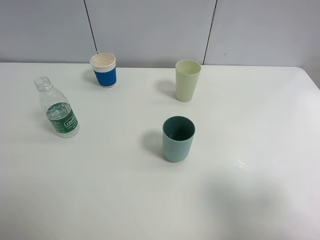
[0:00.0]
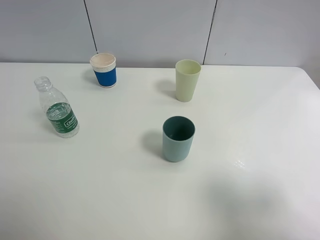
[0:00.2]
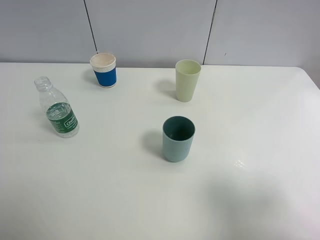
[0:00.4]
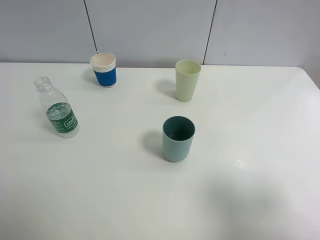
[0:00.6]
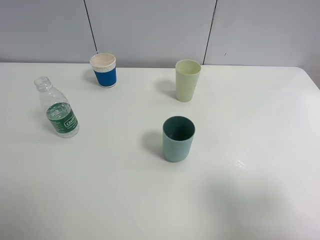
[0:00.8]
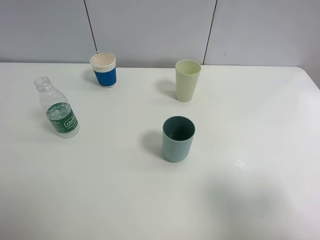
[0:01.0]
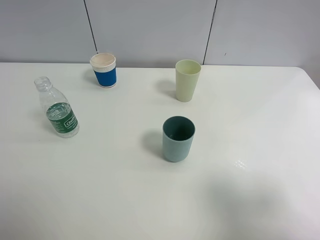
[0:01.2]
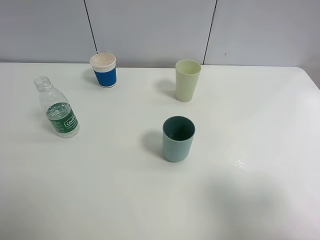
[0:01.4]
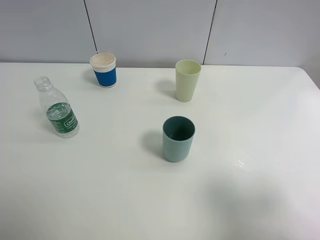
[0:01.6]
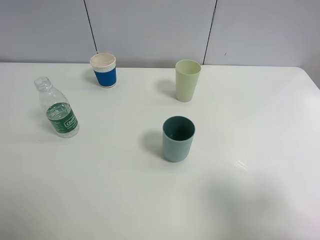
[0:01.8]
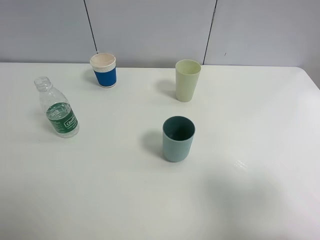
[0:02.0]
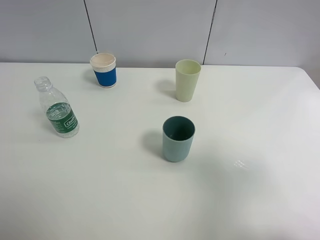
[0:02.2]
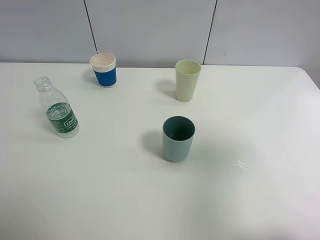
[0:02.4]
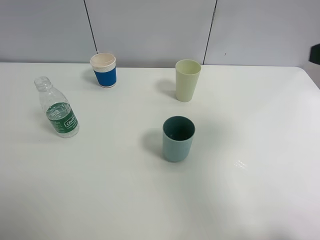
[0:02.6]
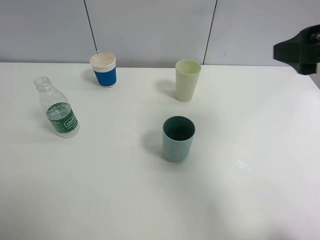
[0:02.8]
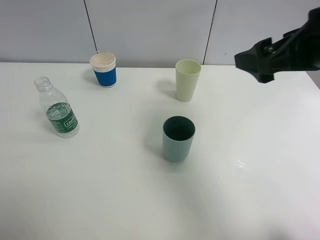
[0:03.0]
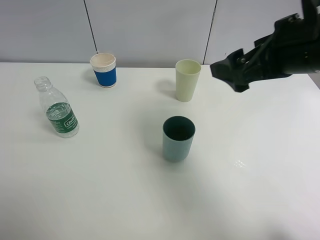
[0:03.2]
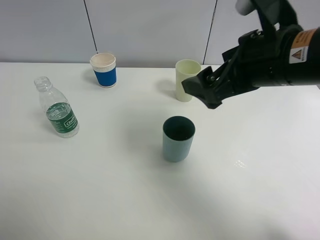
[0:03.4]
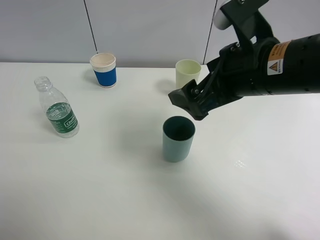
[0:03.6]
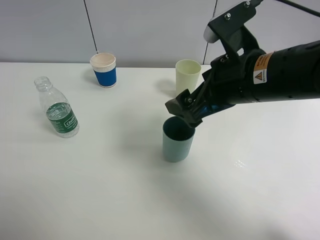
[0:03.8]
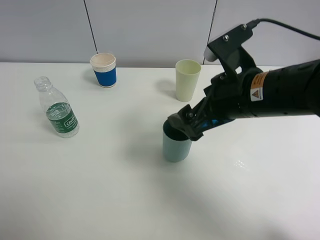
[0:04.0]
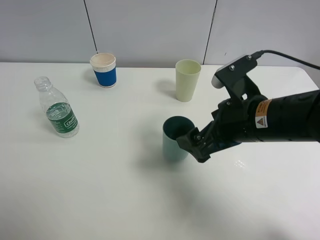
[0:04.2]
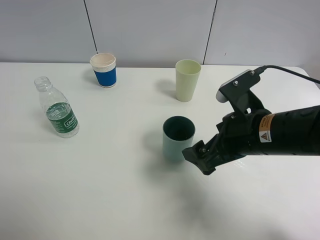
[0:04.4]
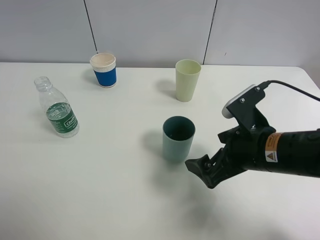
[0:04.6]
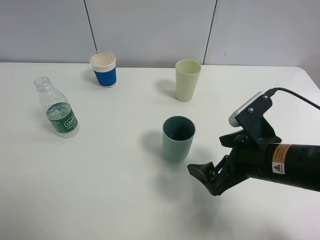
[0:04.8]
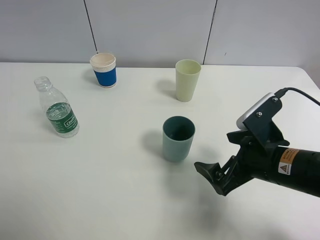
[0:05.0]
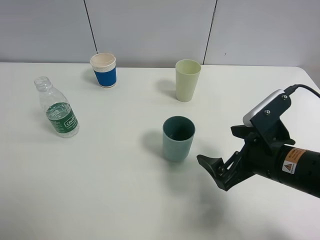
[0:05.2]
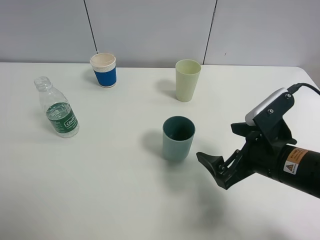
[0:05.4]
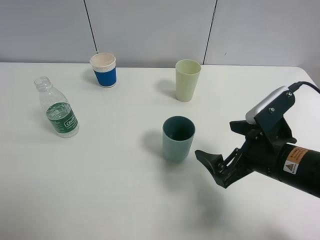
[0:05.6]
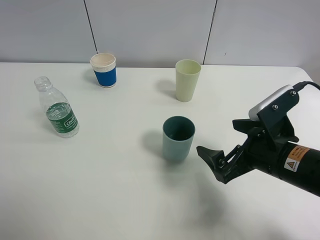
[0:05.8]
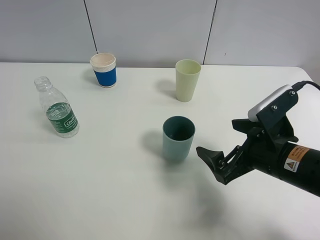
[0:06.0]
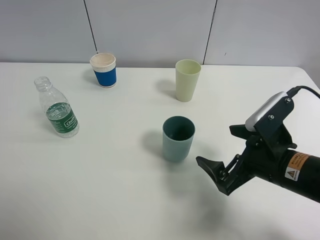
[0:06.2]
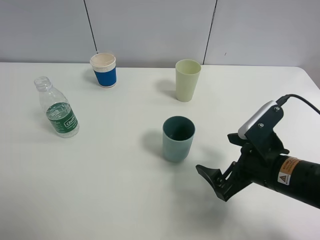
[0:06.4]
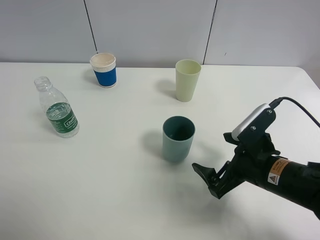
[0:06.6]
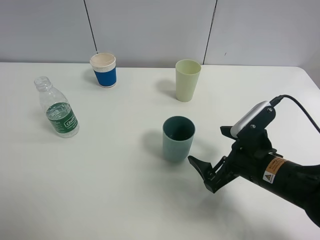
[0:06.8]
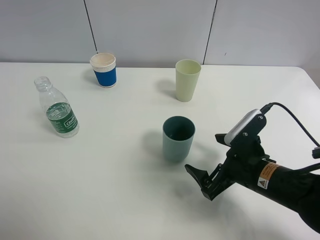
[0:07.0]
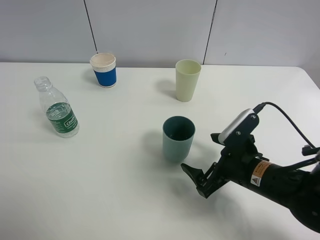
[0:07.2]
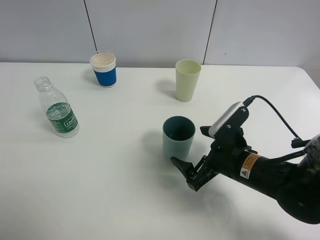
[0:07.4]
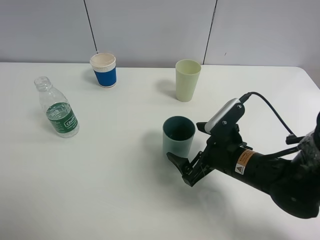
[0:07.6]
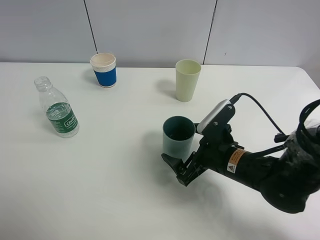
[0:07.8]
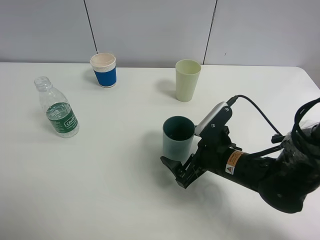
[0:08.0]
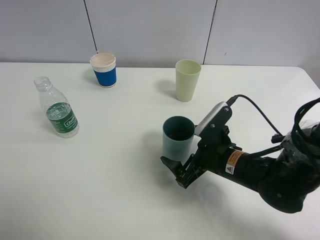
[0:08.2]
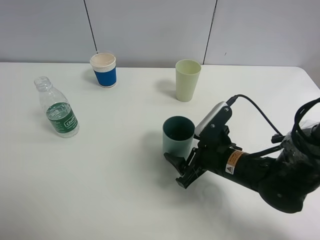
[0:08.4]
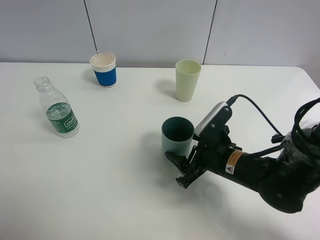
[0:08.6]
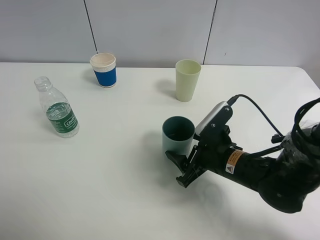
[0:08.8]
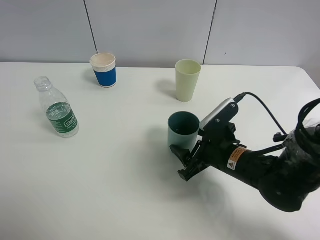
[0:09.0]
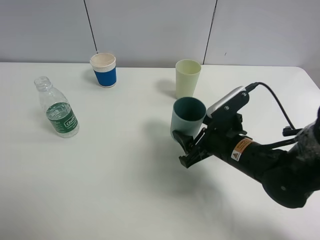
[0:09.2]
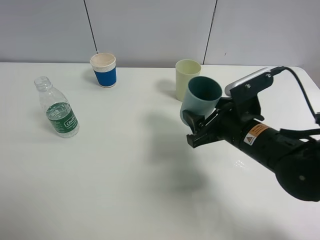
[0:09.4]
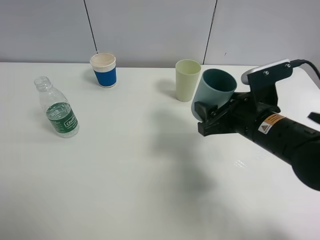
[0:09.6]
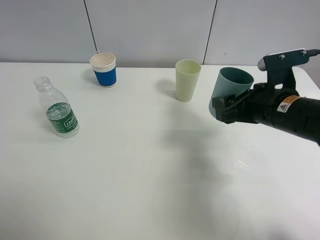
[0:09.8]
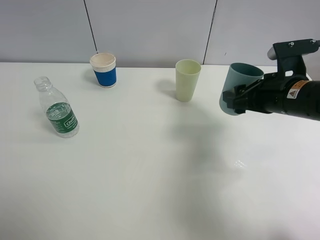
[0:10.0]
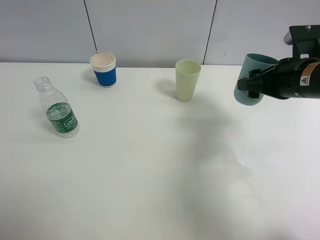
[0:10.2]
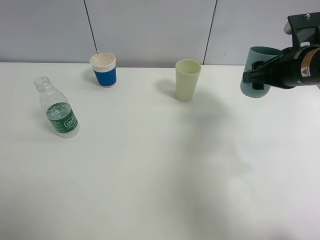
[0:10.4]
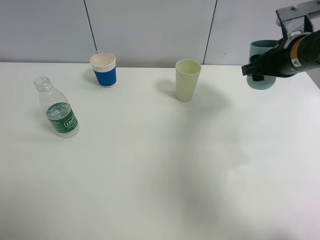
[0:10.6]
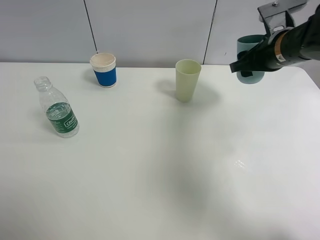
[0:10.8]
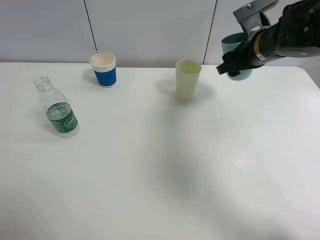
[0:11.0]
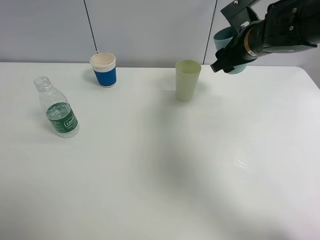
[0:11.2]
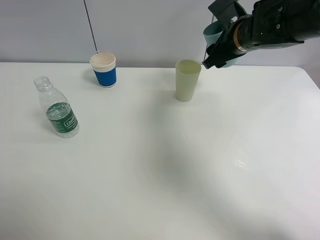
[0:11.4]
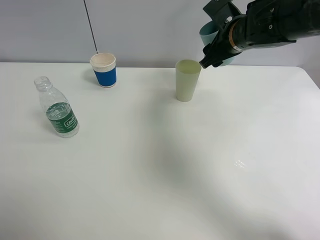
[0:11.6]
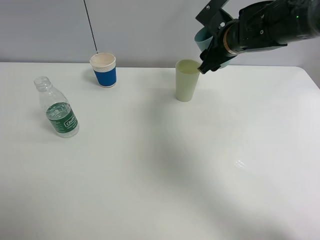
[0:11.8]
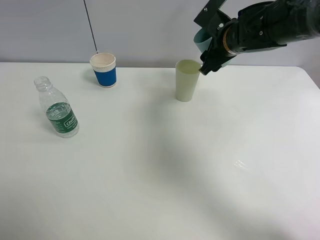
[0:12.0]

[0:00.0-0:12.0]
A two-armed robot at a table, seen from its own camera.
Task of the whole recording: use a clamp to hold the bottle of the drink, pour the beverage into a random cup, then clamp the cup containing the drink and pour the drink into another random cup.
Step, 0:00.0 to 0:08.8: Pick up the blue plastic cup bottle with right gripper.
0:00.0 to 0:01.6: Neither gripper changes place.
0:01.6 to 0:03.0: The right gripper travels forward and to the left by some 20 cm.
0:03.0 to 0:04.4: The right gripper moves downward and to the left, roughly 15 cm.
0:06.0 to 0:07.6: The right gripper moves downward, some 5 cm.
0:07.6 to 0:09.0: The right gripper closes.
0:09.0 to 0:10.4: The right gripper moves upward, to the right and forward, about 20 cm.
0:10.4 to 0:12.0: The right gripper goes approximately 15 cm to the left and forward.

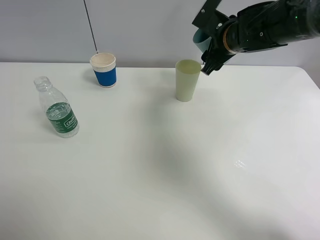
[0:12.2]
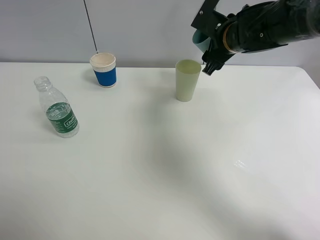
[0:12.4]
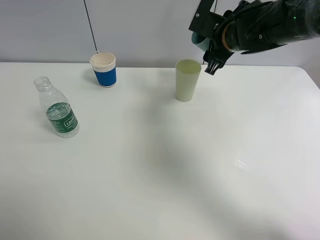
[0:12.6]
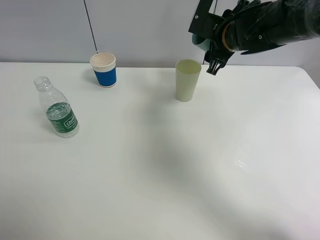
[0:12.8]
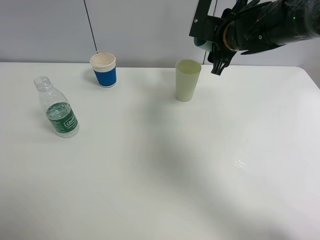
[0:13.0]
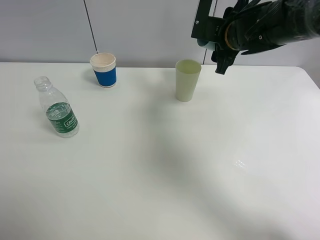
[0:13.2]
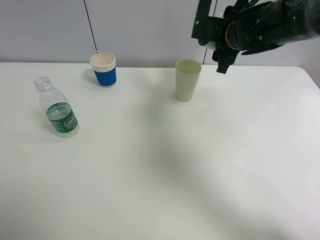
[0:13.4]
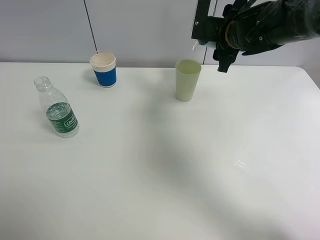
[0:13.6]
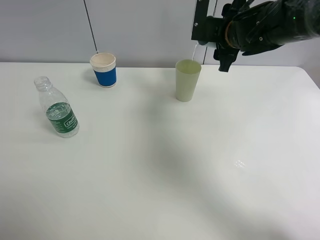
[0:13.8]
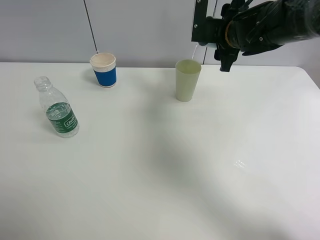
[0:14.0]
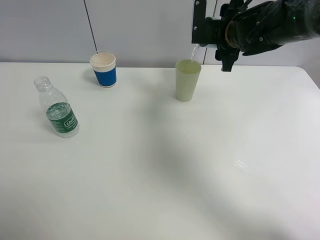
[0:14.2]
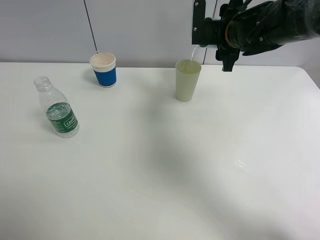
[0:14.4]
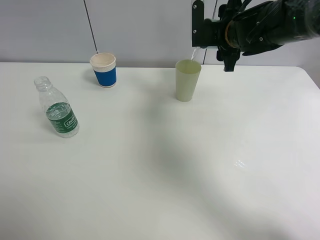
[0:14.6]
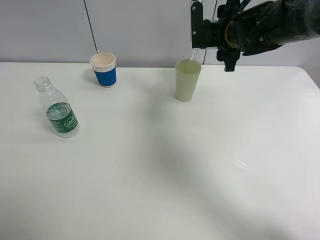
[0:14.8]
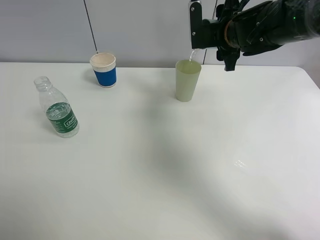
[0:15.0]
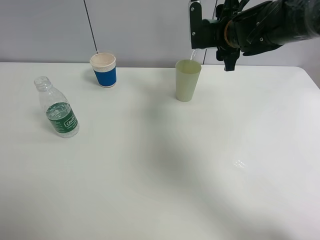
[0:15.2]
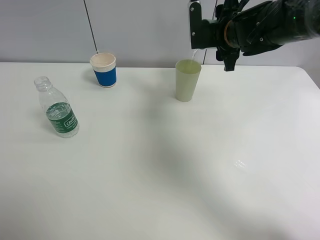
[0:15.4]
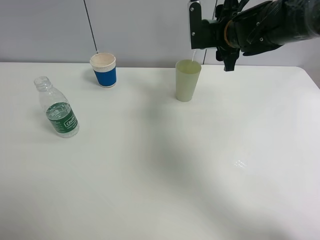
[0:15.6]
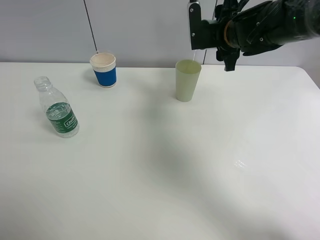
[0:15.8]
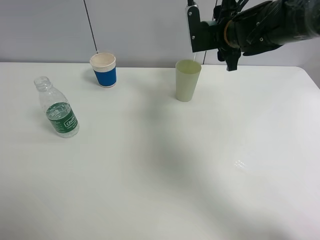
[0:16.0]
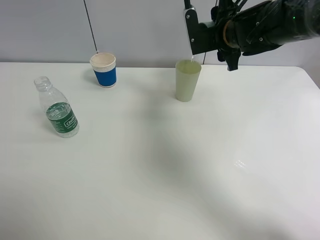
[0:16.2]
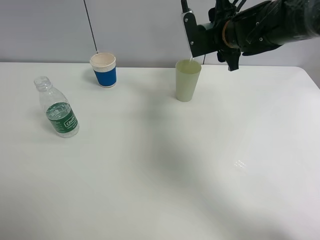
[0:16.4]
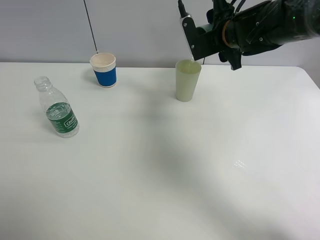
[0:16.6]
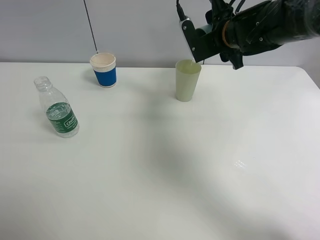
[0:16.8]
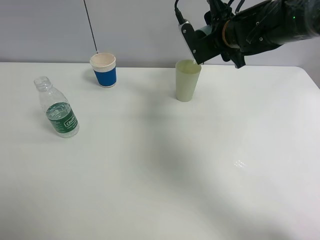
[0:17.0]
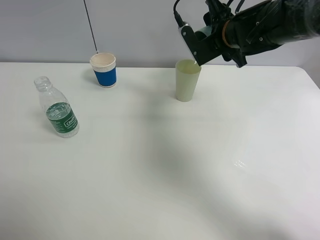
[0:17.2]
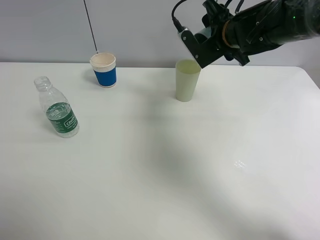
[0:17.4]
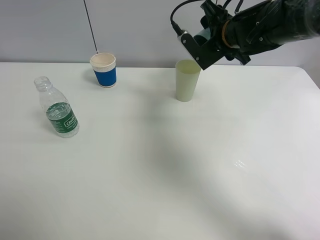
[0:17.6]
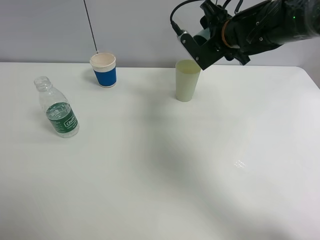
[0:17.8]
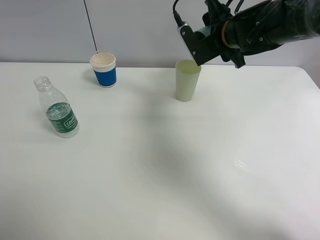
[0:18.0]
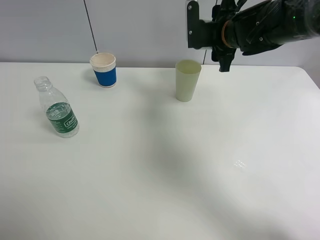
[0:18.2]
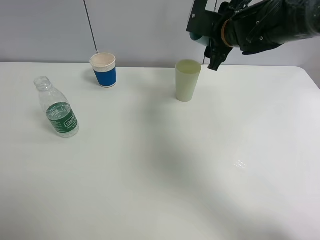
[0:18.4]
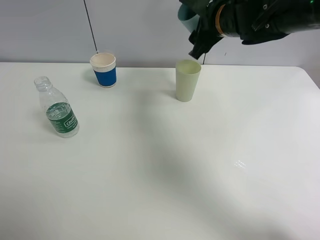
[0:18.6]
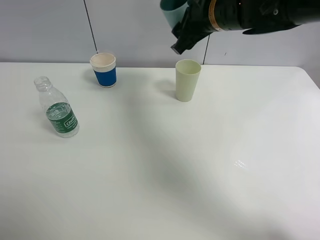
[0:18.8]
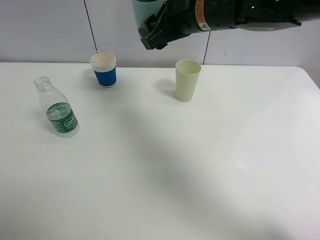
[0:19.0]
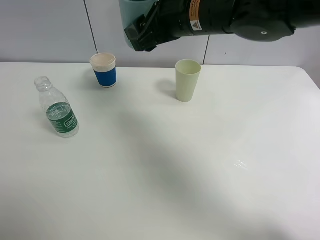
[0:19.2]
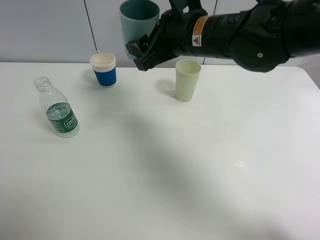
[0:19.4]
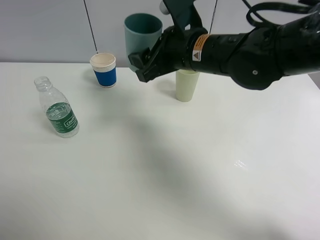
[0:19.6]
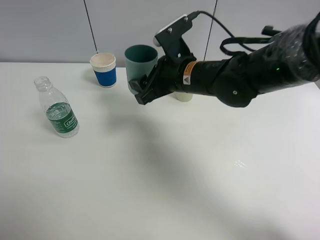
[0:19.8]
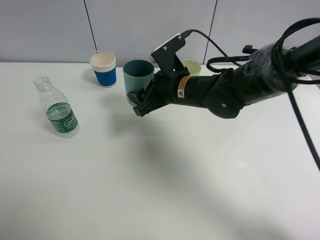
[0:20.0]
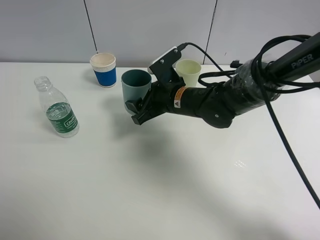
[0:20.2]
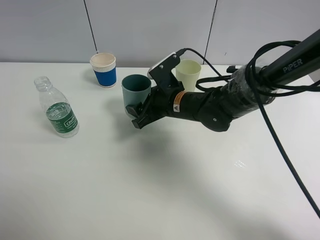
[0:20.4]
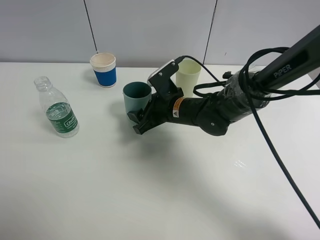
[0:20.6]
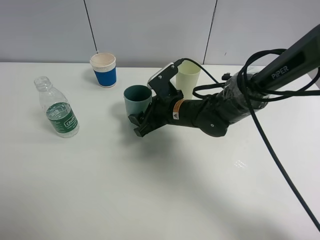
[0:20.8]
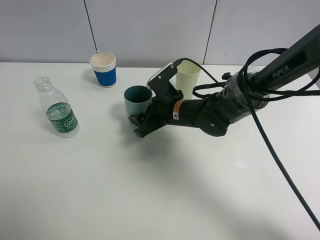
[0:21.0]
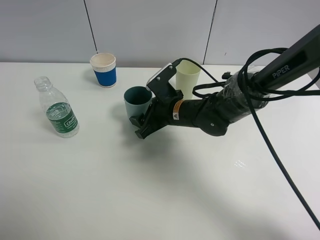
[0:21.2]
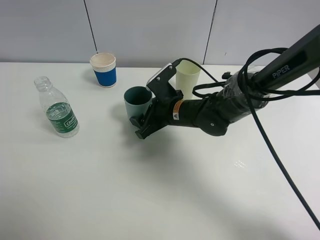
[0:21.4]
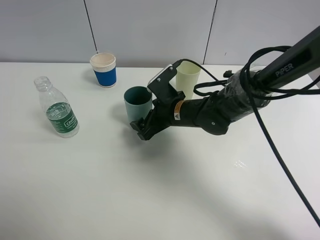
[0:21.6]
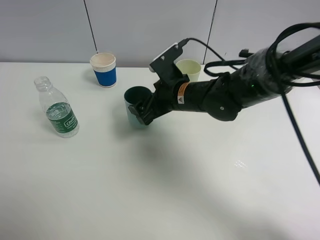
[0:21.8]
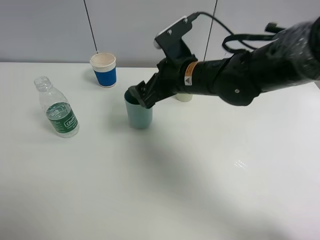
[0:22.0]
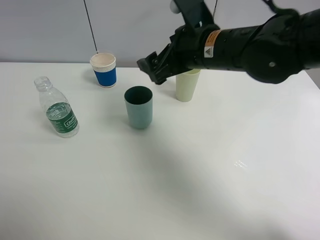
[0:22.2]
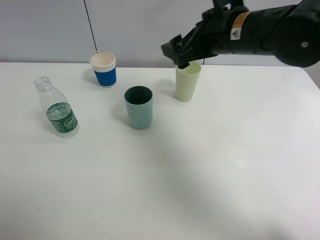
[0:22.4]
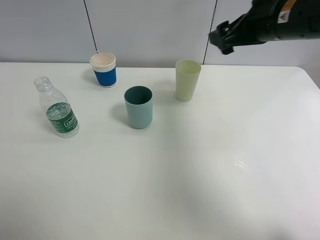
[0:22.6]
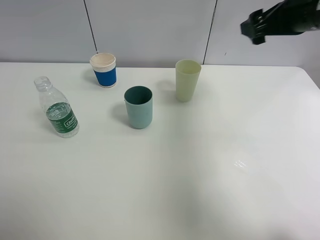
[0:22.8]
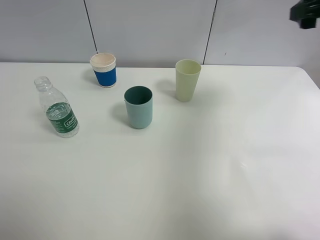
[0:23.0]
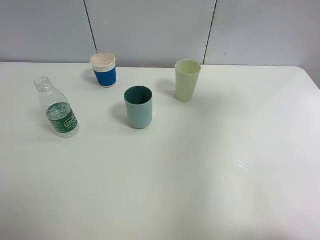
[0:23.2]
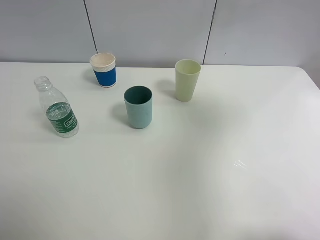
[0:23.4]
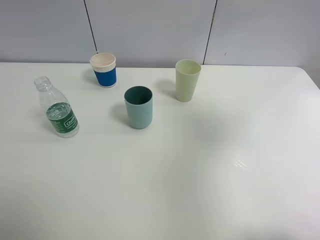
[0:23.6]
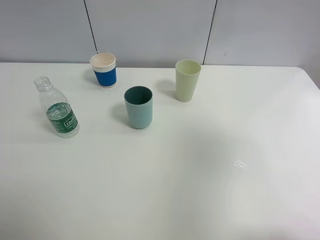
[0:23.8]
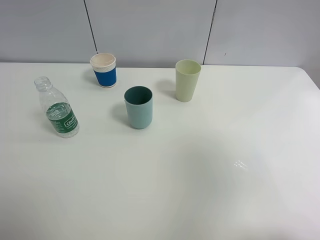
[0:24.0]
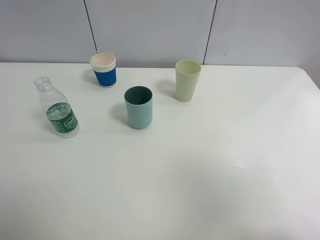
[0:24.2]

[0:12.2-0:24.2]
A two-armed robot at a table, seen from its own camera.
Task of the whole recording: use a clamp to hold the bottle of the drink, pour the beverage into a random cup, then clamp the cup containing the drink and pour the drink into another random cup.
Step, 0:12.2 to 0:18.0: Pour water into the green plastic cup with right gripper.
Step, 0:18.2 to 0:22.0: Place the drink bottle on the table with right gripper.
0:13.8 to 0:15.2: The grippers stay close to where they were, moving slightly.
0:15.2 to 0:16.6: The grippers stay close to where they were, moving slightly.
0:18.2 to 0:19.8: The right gripper is displaced to the left, backward and downward by some 15 cm.
0:19.8 to 0:21.2: The right gripper moves downward, some 10 cm.
0:21.2 to 0:22.6: The right gripper is displaced upward and to the right by approximately 25 cm, and opens its fingers.
0:22.6 to 0:24.2: The right gripper heads backward, covering some 35 cm.
